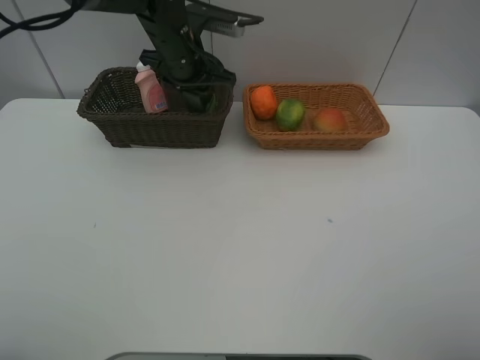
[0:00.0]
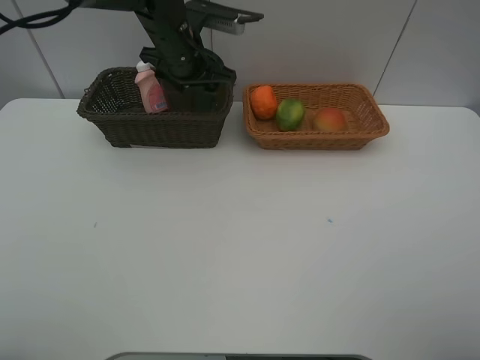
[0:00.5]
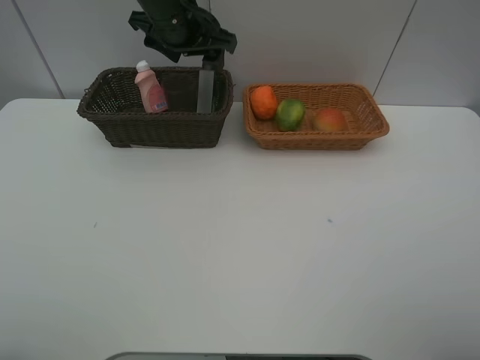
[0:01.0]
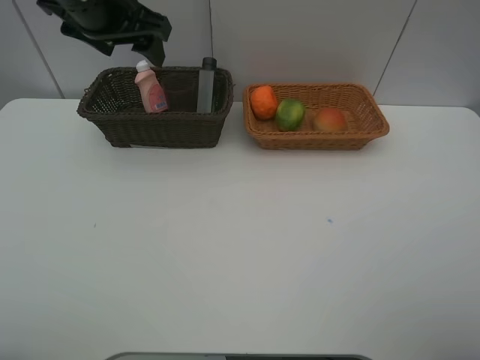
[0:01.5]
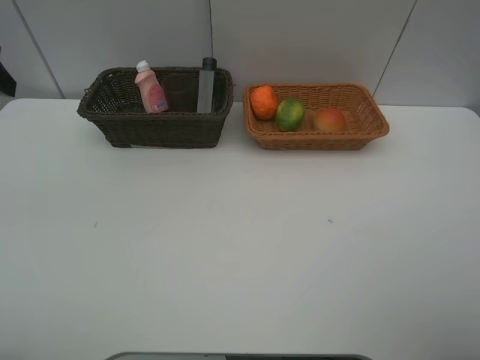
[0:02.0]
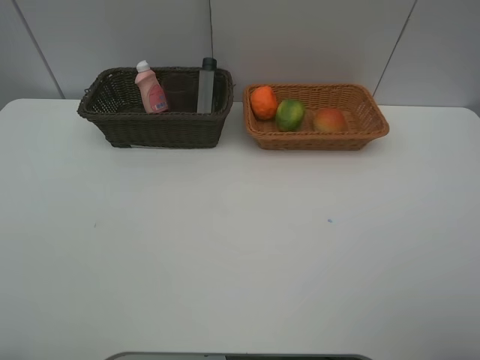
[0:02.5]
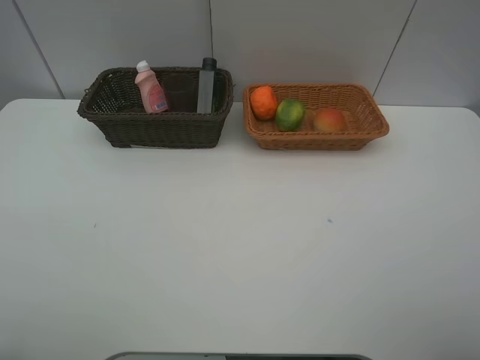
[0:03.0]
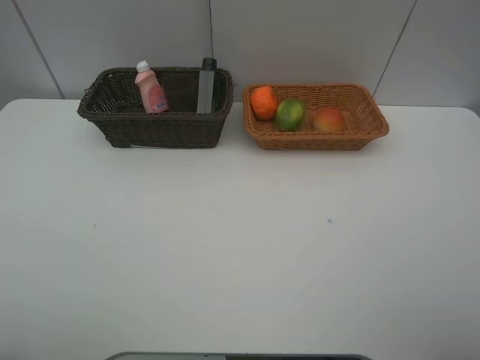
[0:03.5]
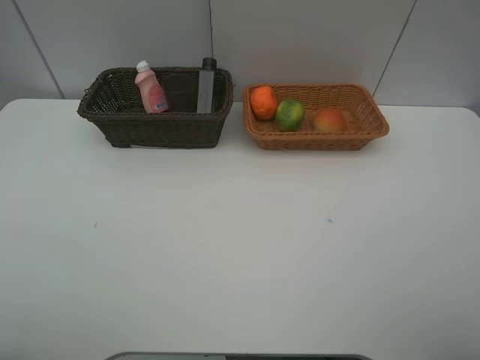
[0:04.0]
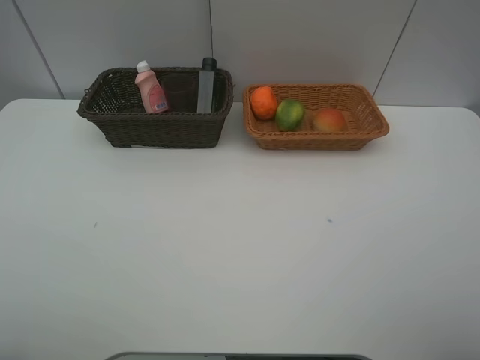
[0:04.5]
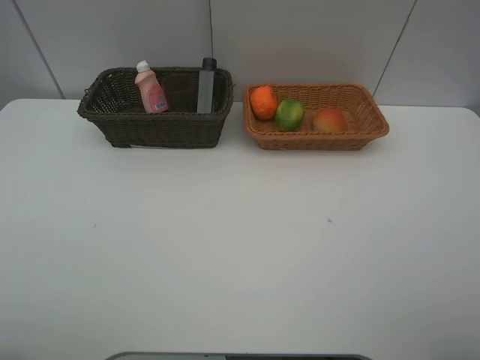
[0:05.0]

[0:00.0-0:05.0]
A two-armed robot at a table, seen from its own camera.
Task of the whole recording: place multiple objects separately in different baskets.
0:00.0 to 0:02.5: The left gripper is displaced backward and to the left by about 40 cm, and opens up.

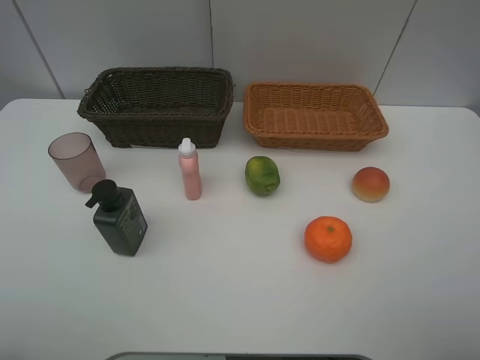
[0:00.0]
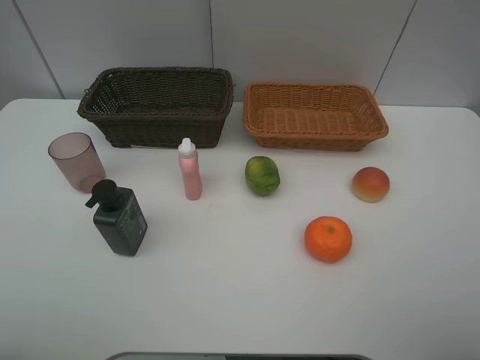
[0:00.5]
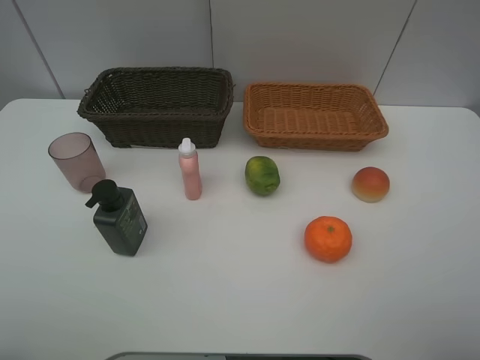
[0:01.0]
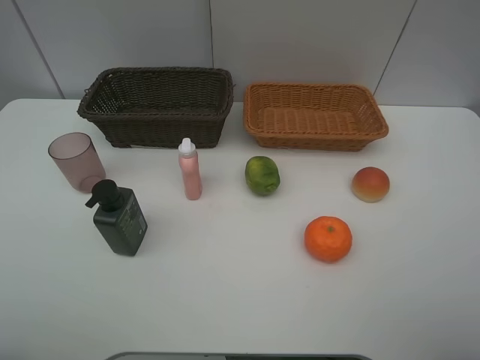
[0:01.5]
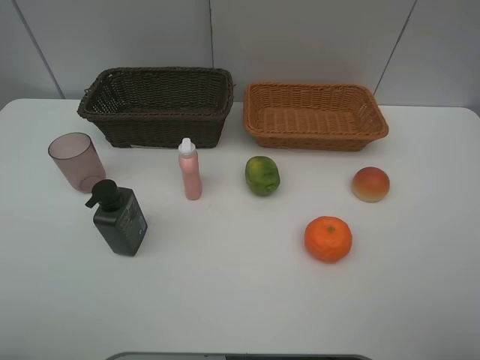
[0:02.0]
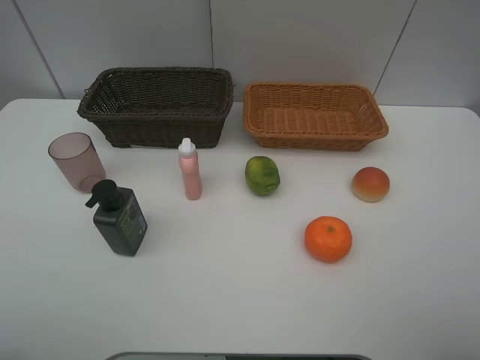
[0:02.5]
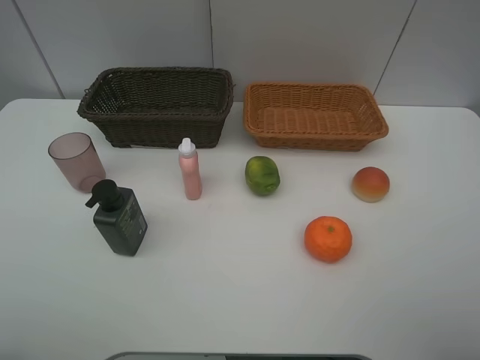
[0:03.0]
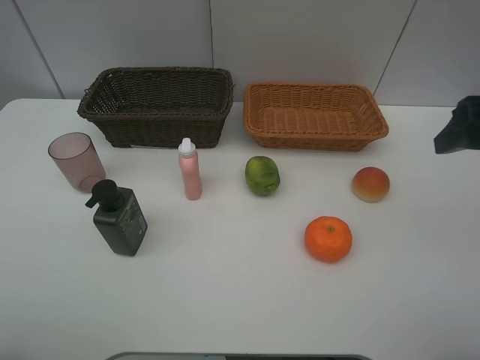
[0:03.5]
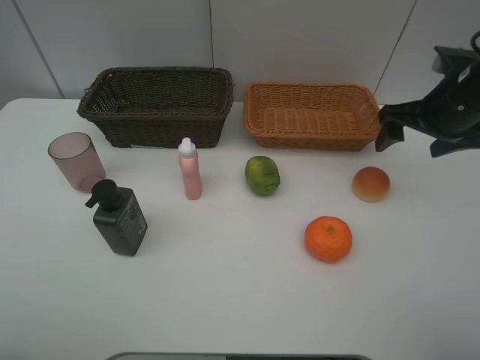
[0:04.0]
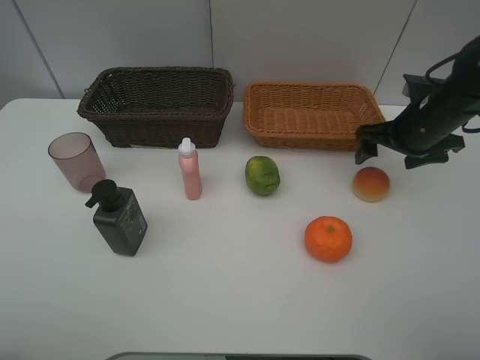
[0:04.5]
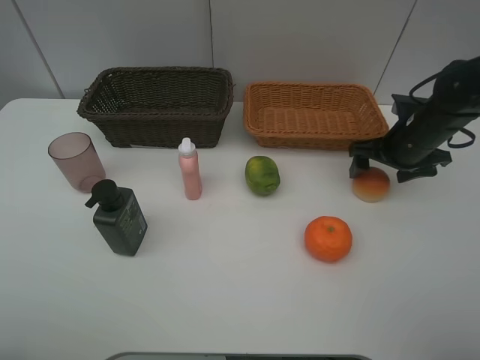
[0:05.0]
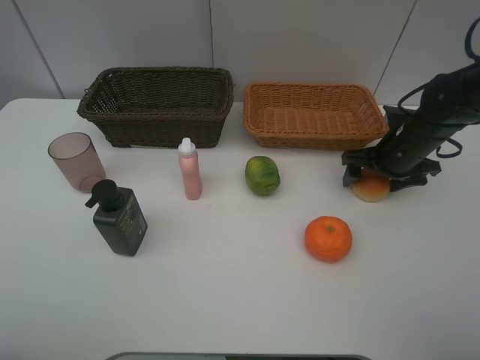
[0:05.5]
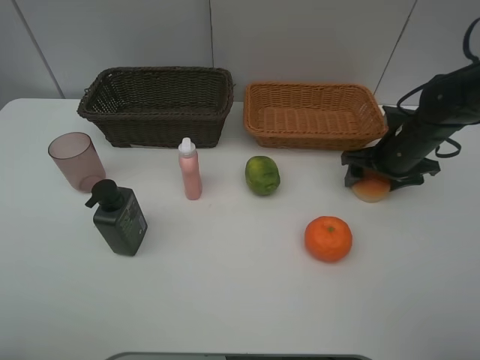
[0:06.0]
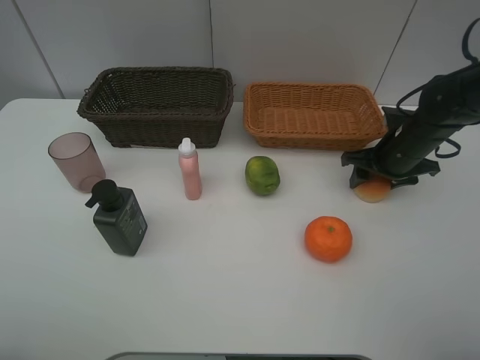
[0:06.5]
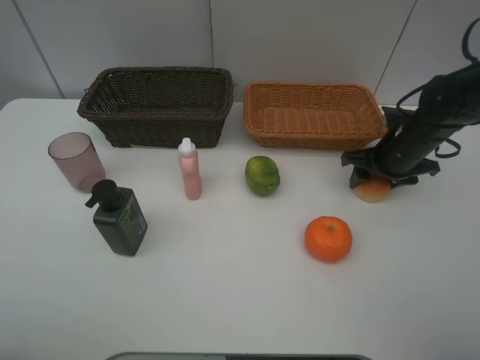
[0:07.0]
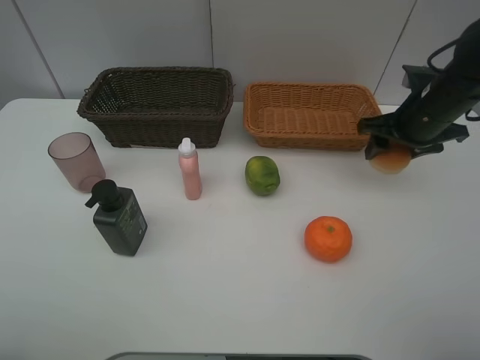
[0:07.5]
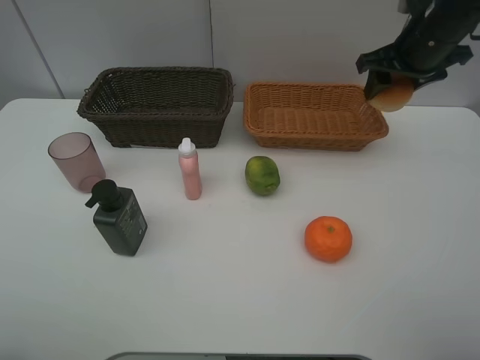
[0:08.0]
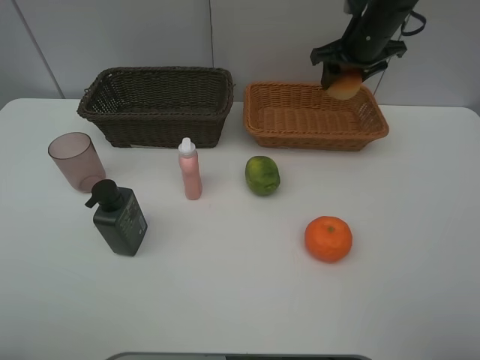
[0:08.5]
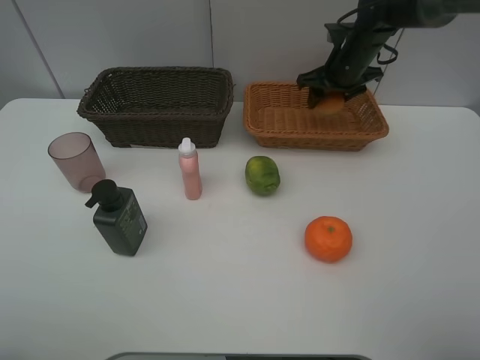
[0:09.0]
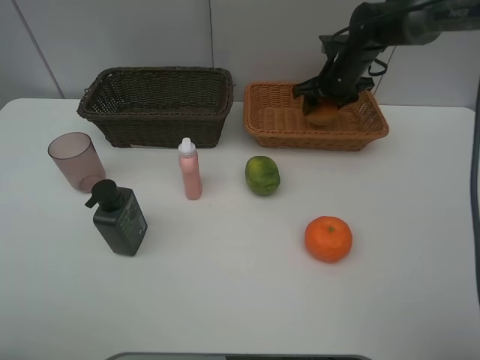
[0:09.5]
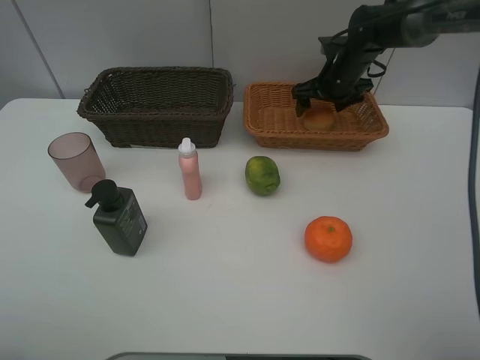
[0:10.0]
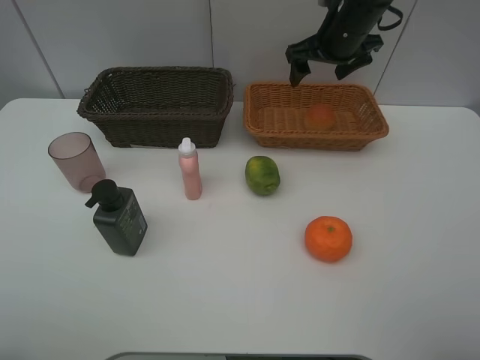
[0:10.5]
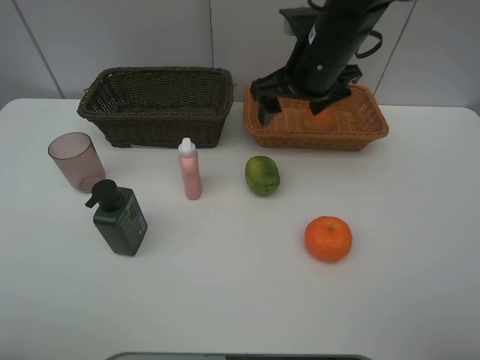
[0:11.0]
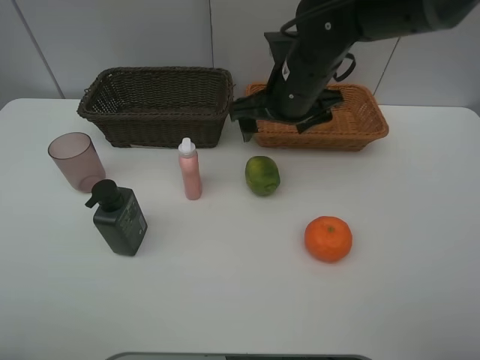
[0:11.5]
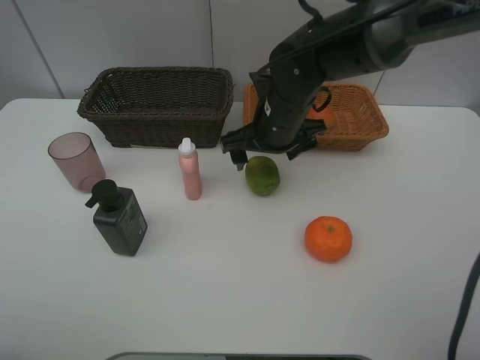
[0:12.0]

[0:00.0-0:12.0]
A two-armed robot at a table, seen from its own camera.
Task of the whole recording: place multiple objects separately in different baskets.
0:02.0 to 0:04.0: The right gripper goes roughly 30 cm forward.
0:04.0 to 0:06.0: The right gripper moves downward, approximately 10 cm, and closes up.
0:06.0 to 0:08.0: The right gripper travels upward by approximately 15 cm, and closes.
0:08.0 to 0:10.0: The right gripper shifts some 15 cm downward, forward and to the left, and opens.
0:10.0 to 0:12.0: The right gripper shifts approximately 20 cm backward and to the left.

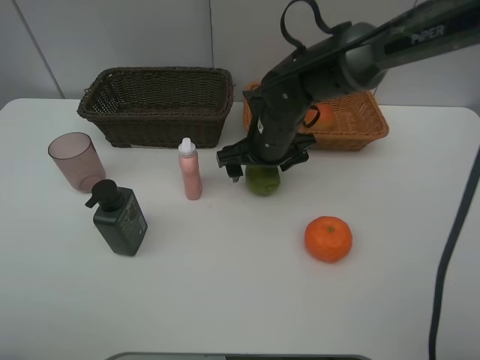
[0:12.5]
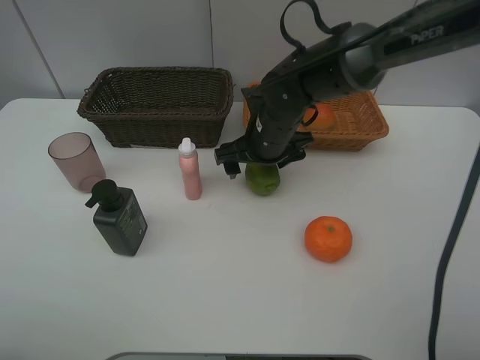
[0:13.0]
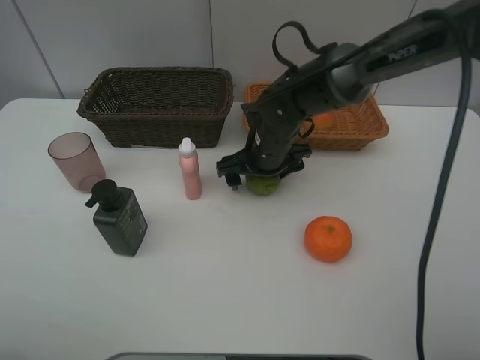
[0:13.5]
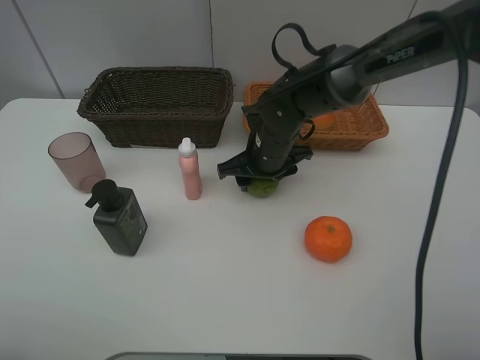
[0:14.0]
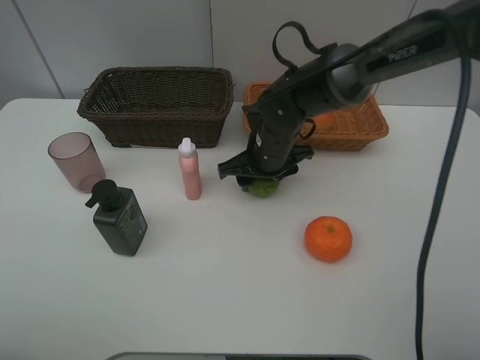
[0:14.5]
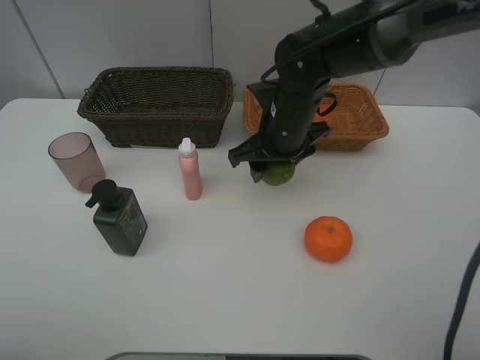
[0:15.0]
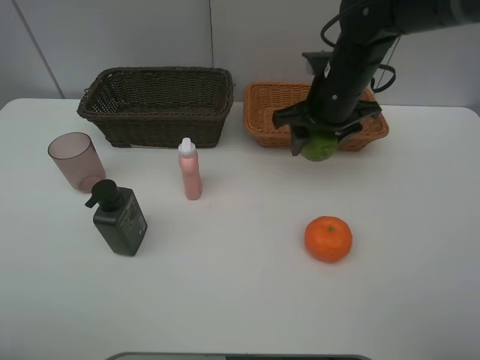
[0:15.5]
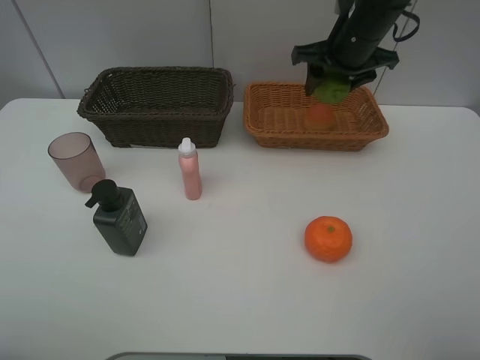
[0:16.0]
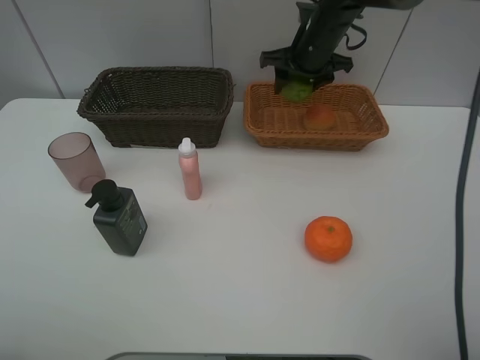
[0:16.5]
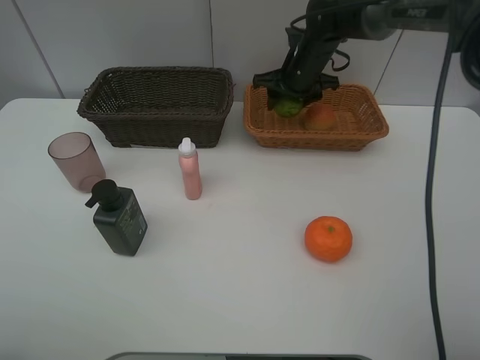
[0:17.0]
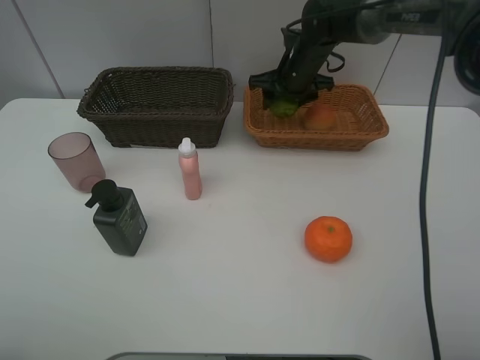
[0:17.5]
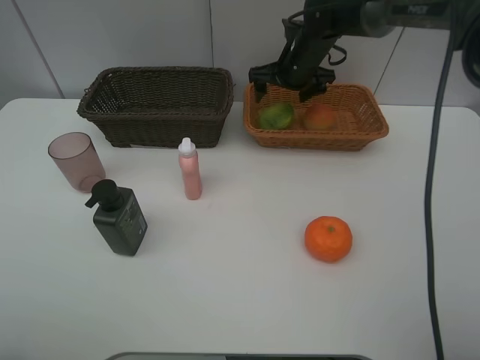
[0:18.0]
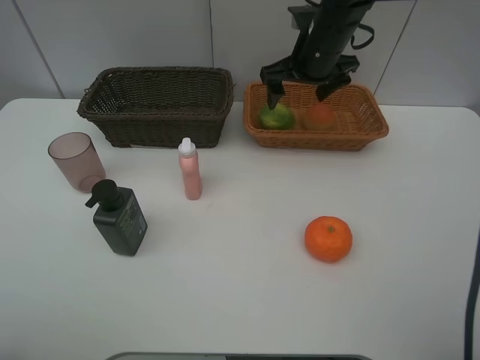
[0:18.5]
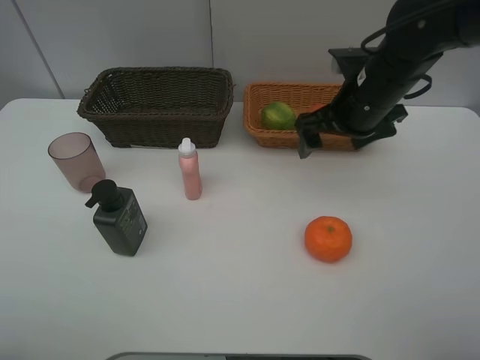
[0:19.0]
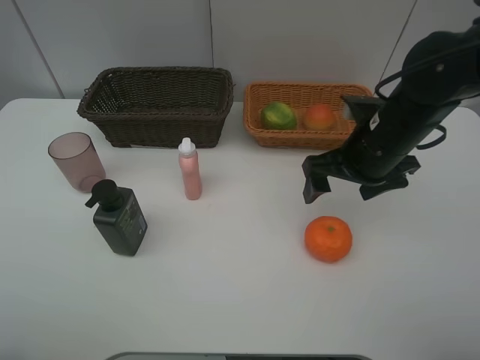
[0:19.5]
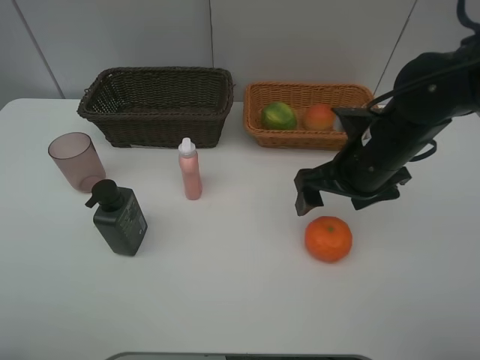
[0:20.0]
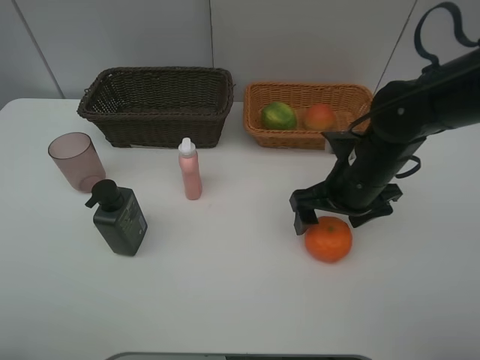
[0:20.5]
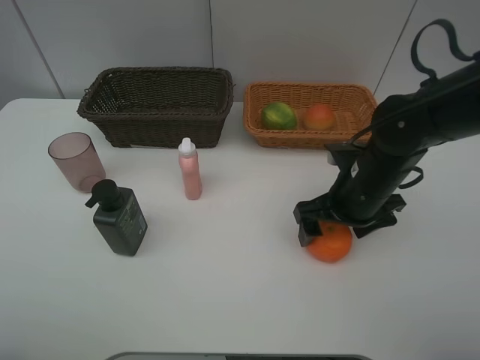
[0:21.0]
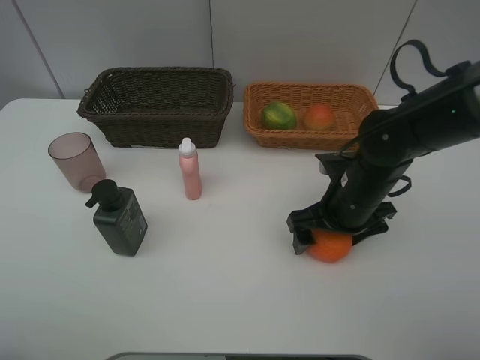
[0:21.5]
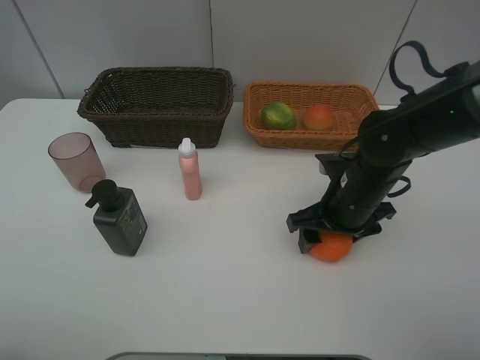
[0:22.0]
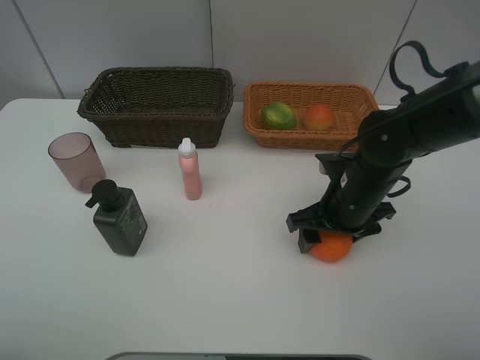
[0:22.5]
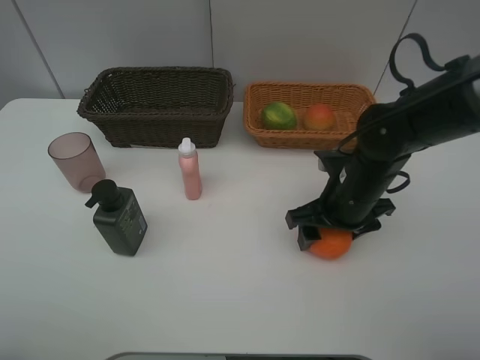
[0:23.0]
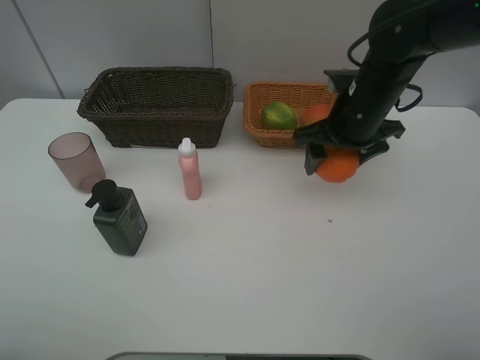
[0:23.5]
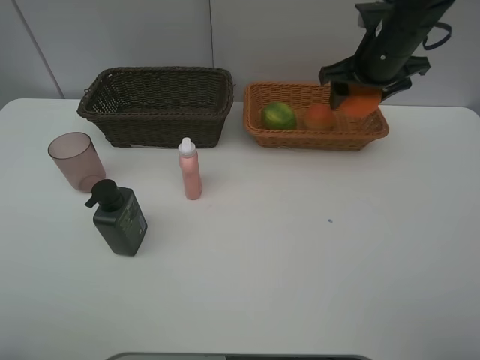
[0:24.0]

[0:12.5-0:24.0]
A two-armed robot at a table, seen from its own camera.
Task of the whole recording: place multiple objects separately in different baskets.
0:12.5 to 0:14.5: The right gripper closes up.
0:14.5 to 0:16.5: The right gripper shifts roughly 20 cm forward, upward and to the right.
0:16.5 to 0:18.5: The right gripper heads backward, covering some 5 cm, and opens.
0:18.5 to 0:20.0: The right gripper heads backward, covering roughly 15 cm.
0:20.0 to 0:22.0: The right gripper travels downward by about 5 cm, and closes its fingers.
0:22.0 to 0:24.0: The right gripper moves forward and upward, some 20 cm.
